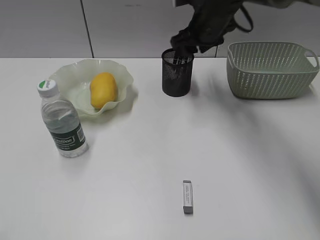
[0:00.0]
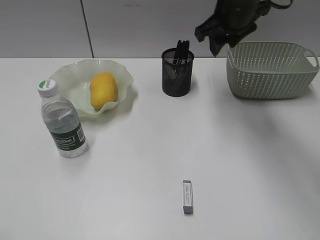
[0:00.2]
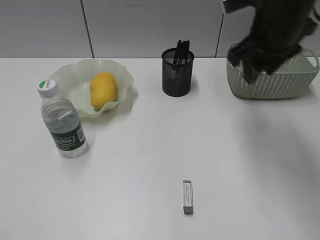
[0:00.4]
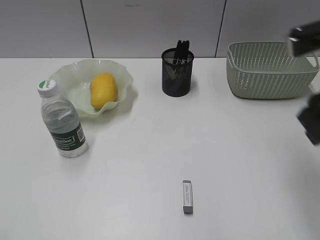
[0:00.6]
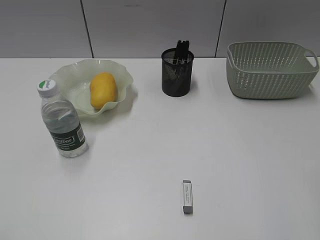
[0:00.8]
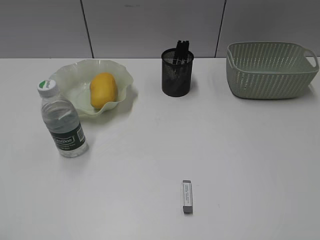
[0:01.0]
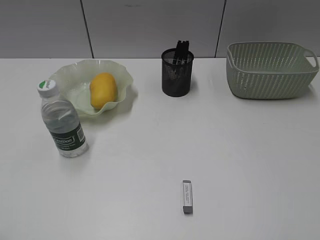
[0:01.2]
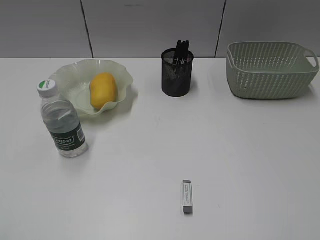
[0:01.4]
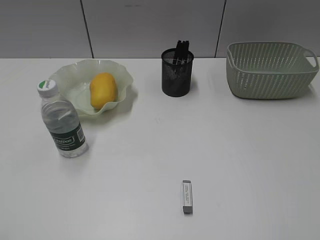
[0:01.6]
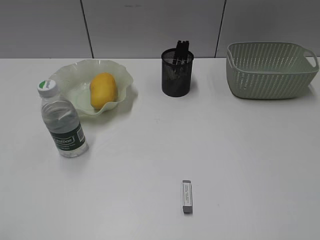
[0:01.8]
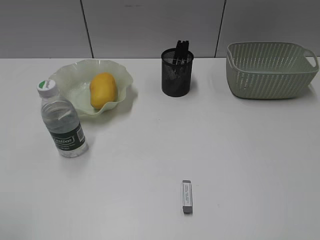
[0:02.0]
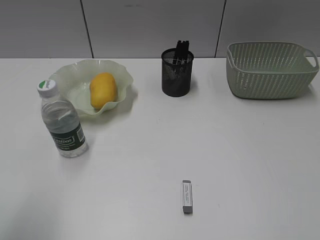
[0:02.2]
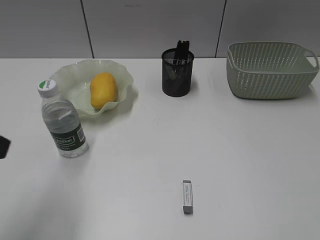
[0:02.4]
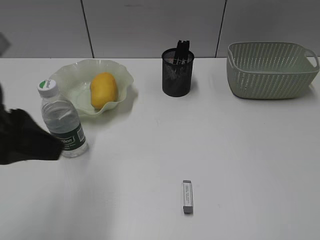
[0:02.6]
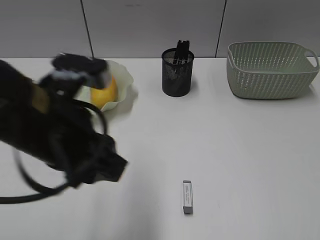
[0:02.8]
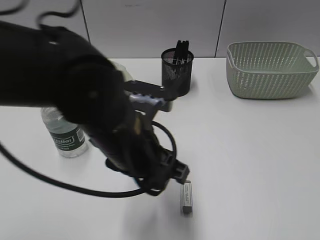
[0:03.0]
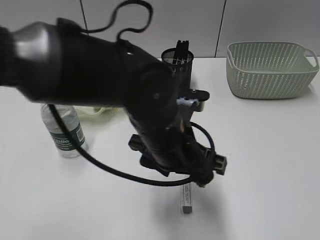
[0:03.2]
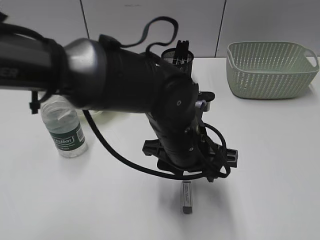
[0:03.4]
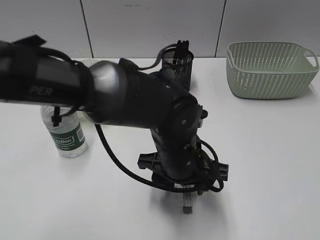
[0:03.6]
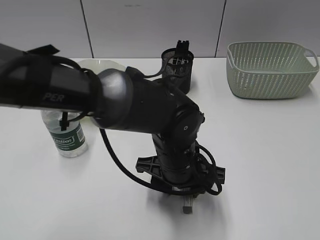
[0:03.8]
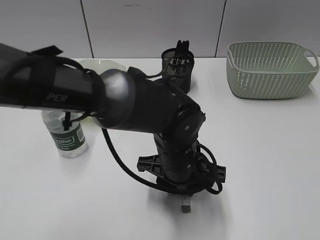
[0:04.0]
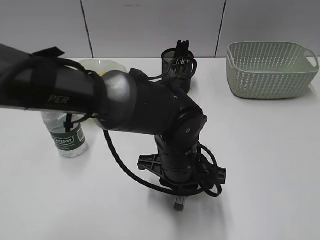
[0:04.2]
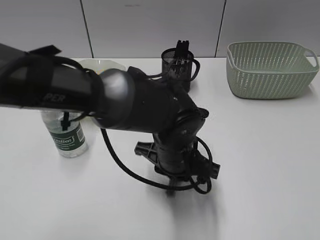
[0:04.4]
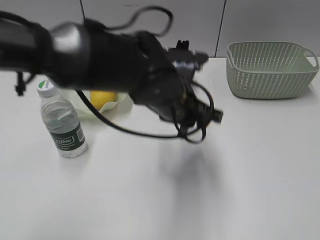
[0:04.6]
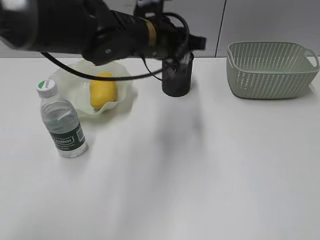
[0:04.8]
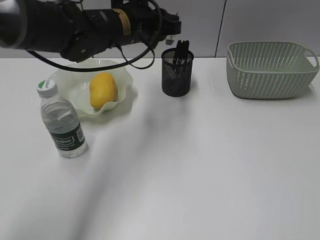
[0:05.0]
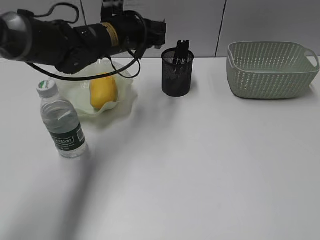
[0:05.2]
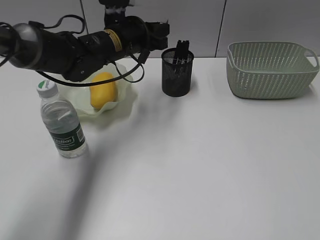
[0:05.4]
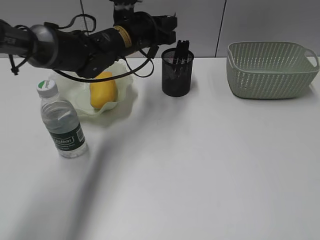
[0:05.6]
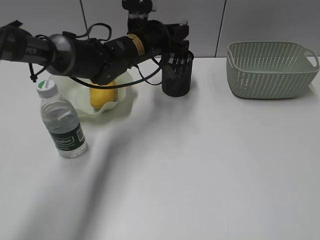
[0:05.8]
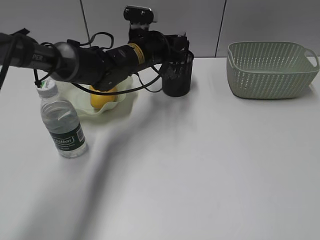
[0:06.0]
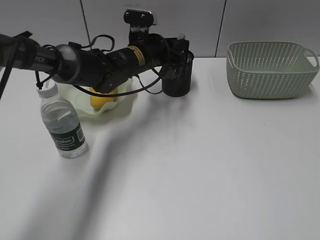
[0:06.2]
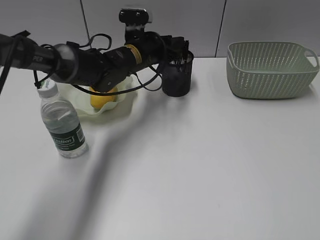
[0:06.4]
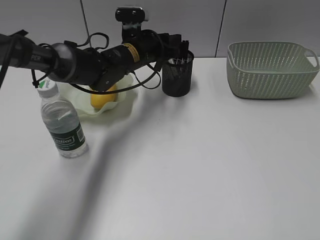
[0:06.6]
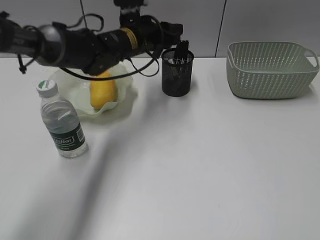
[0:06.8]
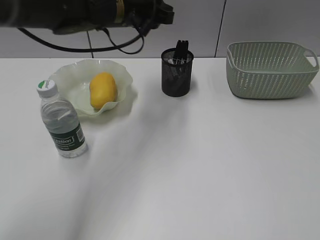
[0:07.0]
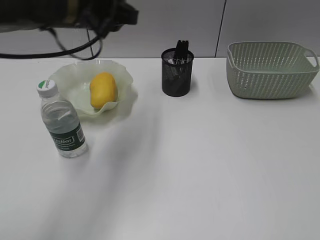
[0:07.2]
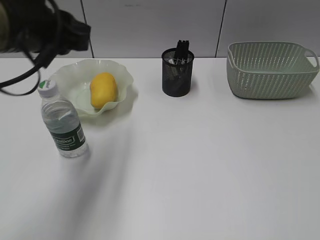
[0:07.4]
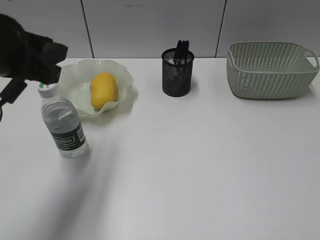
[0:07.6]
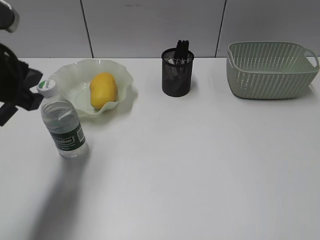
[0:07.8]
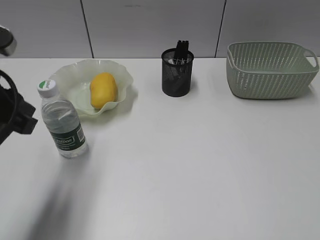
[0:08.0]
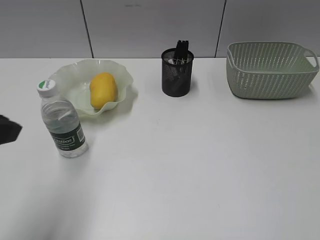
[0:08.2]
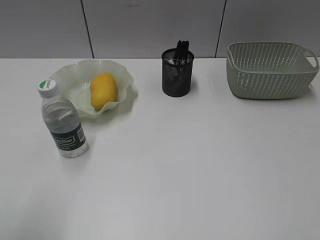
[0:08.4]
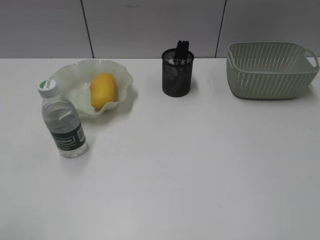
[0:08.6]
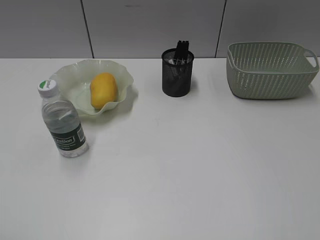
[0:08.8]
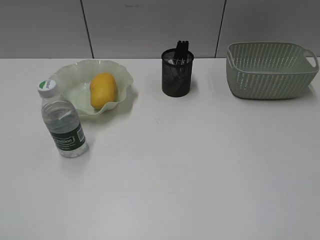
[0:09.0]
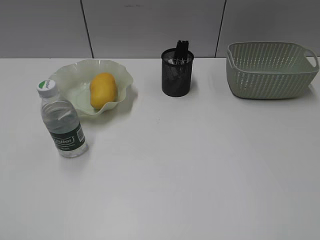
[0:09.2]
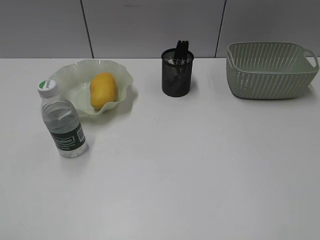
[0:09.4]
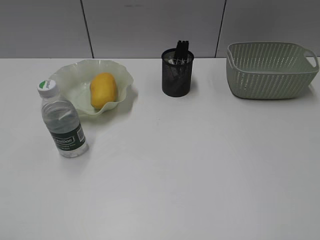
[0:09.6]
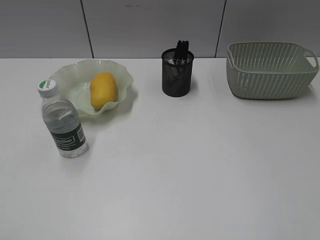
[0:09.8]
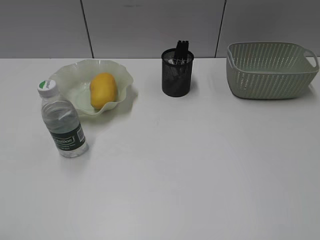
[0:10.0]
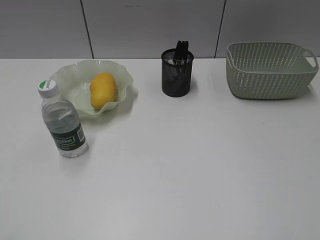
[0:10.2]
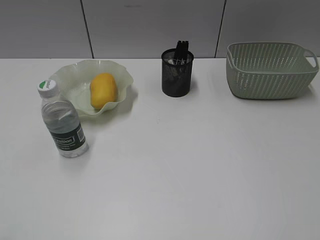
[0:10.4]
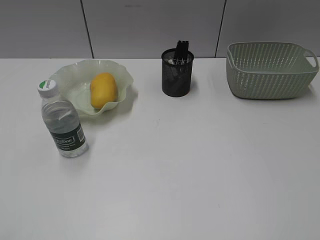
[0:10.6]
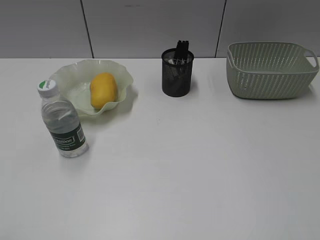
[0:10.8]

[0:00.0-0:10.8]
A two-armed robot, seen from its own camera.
Step, 0:00.0 to 0:04.2: Grasp the eraser with left gripper.
Step, 0:04.4 to 0:06.8: Place the eraser in pen holder with left gripper.
0:00.0 to 0:01.6: The right gripper travels backward and to the right by approximately 50 cm.
0:01.6 to 0:03.0: The left gripper heads to the right and forward, covering roughly 35 cm.
0:03.0 to 0:04.6: The left gripper moves forward and to the right, about 10 cm, goes downward and returns, approximately 10 cm each way, and closes its fingers.
0:04.6 to 0:06.2: The left gripper goes approximately 15 cm forward.
0:06.2 to 0:07.8: The left gripper goes approximately 30 cm backward, to the left and upward.
0:07.8 to 0:09.2: The left gripper travels backward and to the left by approximately 25 cm.

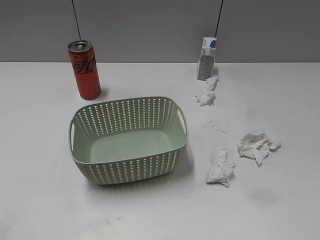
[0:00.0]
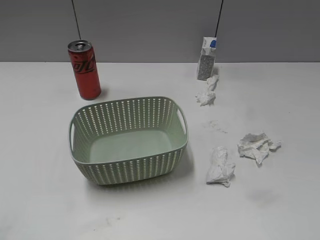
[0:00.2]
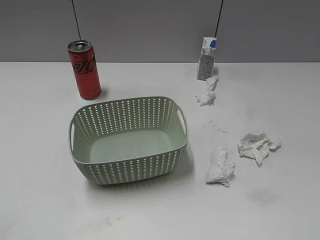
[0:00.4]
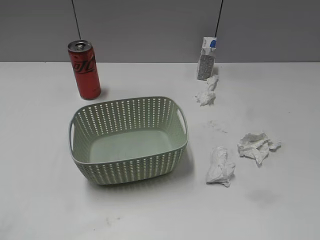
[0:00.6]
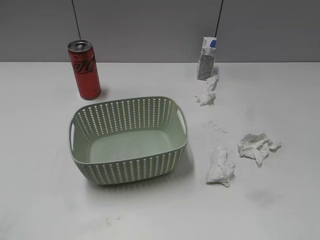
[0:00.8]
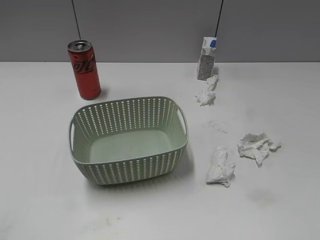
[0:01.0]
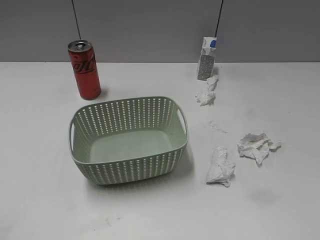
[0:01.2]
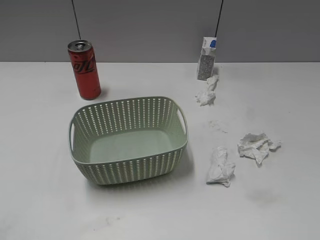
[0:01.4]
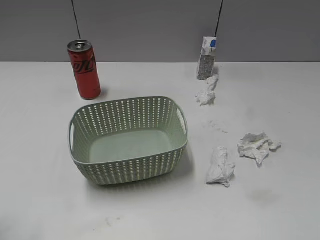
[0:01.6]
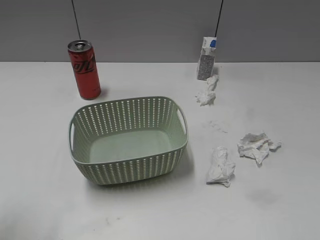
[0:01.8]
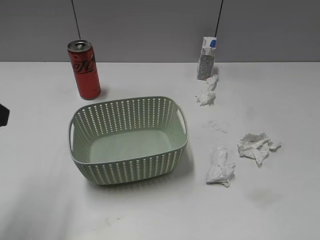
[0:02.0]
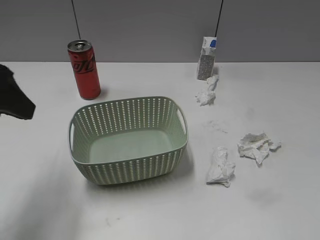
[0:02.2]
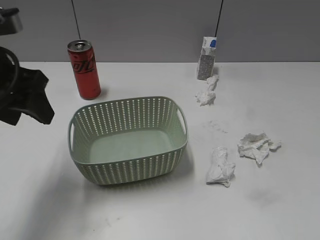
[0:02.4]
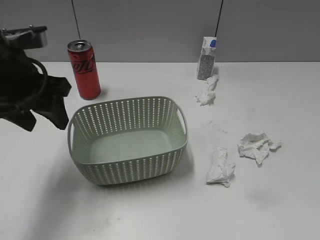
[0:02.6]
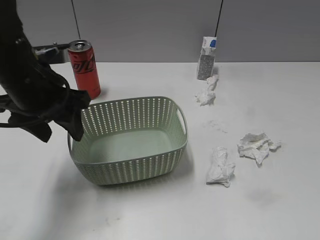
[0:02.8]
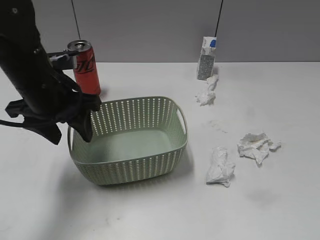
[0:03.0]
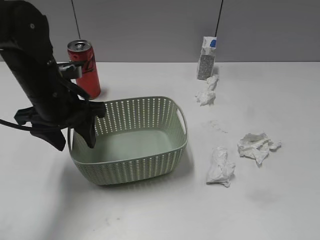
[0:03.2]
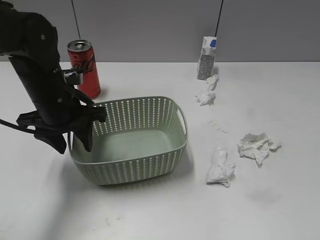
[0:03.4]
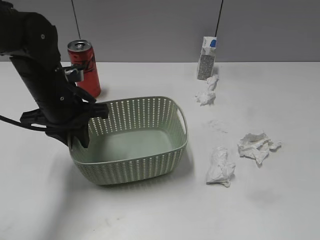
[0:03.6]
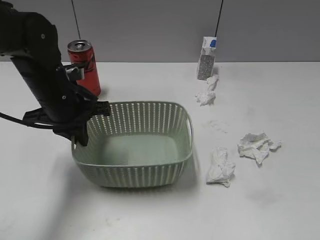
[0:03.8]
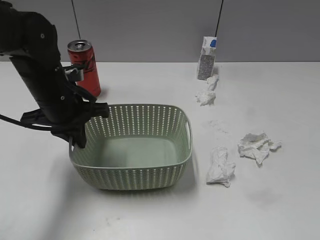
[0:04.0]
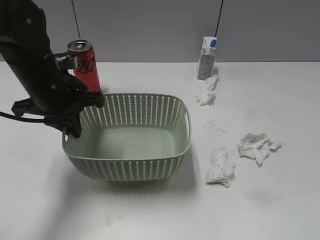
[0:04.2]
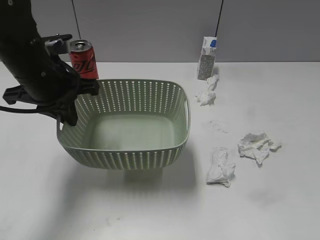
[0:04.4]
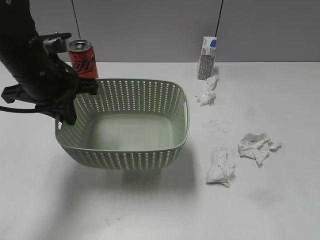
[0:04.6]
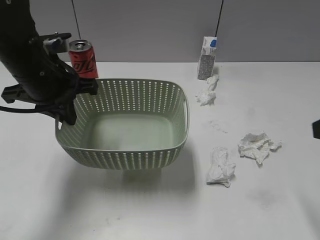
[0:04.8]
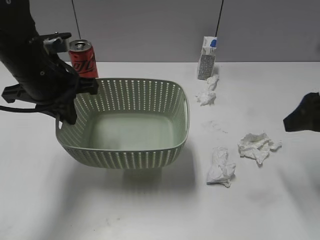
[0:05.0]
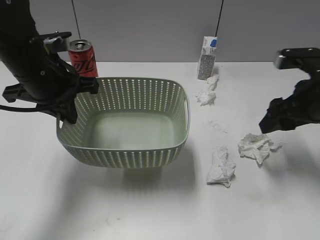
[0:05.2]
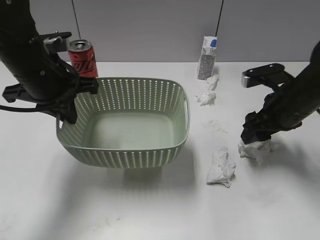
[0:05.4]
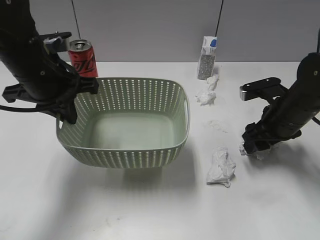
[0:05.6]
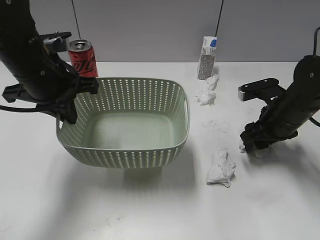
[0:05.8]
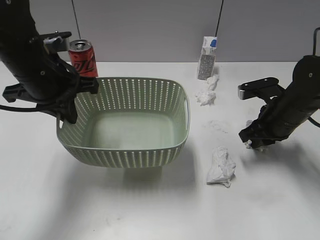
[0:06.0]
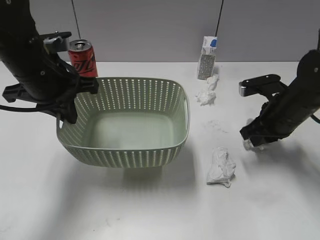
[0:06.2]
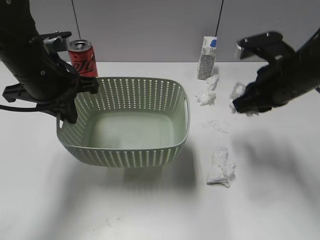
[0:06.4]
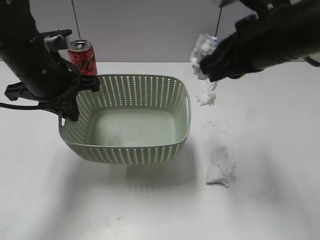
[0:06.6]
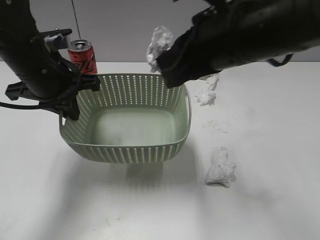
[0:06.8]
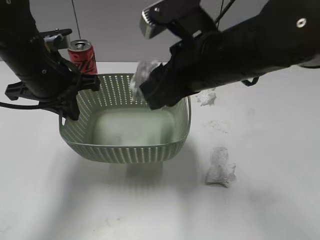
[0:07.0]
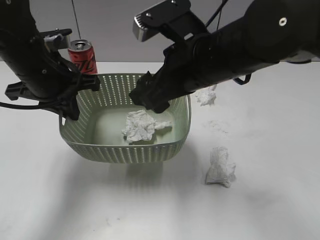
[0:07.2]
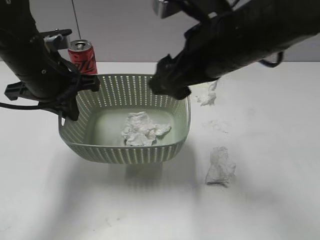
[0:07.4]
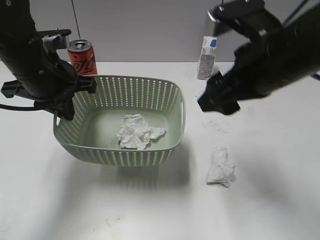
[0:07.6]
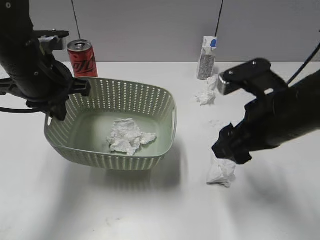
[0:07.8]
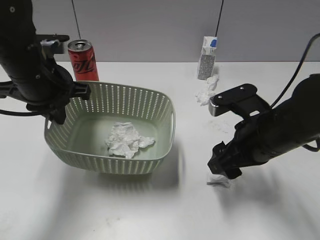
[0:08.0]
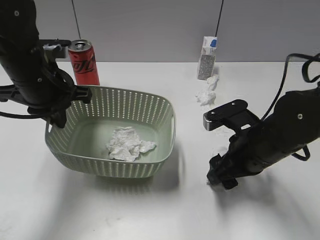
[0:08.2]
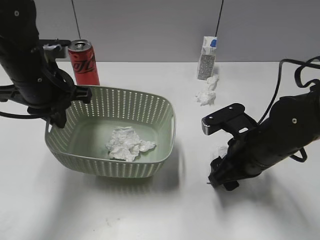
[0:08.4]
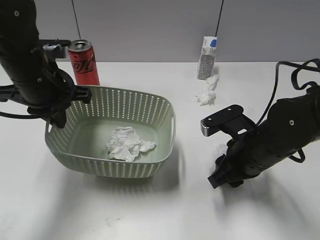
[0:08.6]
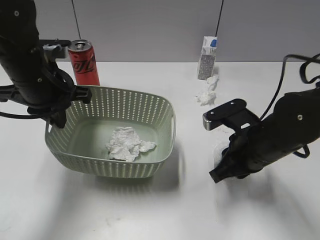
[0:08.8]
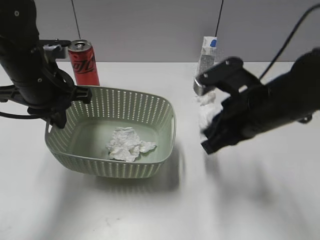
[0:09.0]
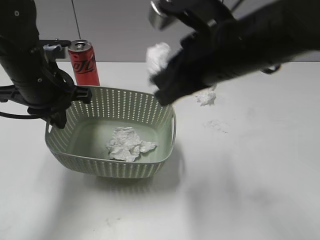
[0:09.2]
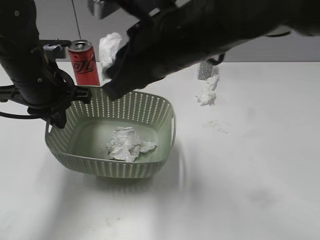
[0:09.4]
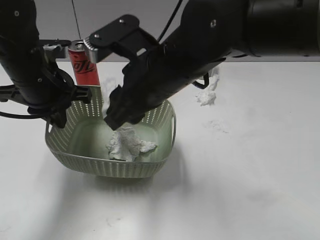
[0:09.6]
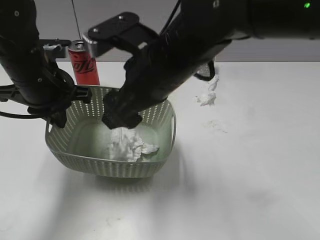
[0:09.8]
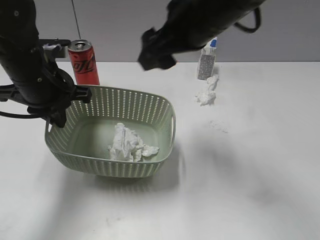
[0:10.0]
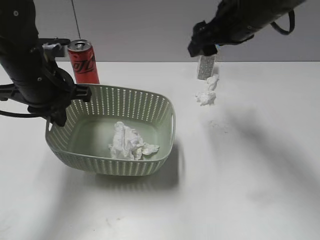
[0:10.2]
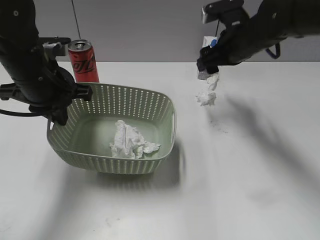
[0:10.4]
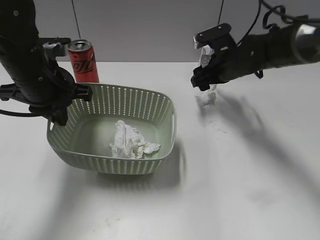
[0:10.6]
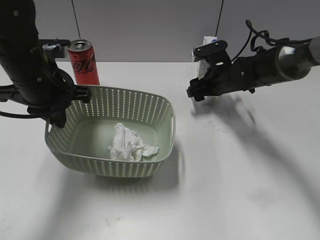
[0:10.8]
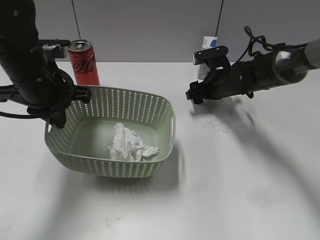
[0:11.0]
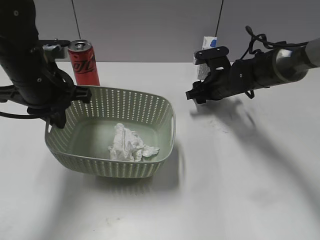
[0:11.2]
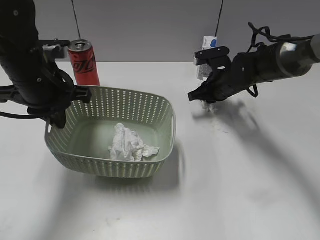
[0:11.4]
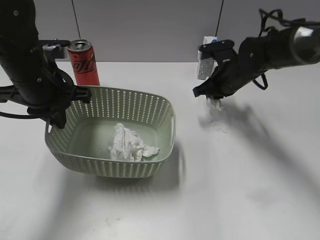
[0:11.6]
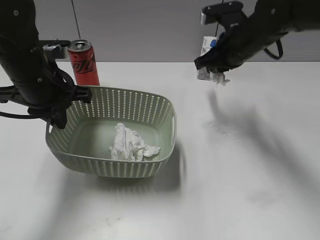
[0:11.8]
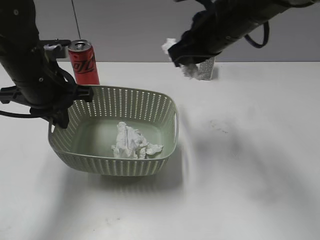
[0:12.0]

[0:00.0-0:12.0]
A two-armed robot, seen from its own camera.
Step, 0:01.8 to 0:03.8: Grasp the basket with left gripper.
Step, 0:04.0 to 0:04.2: Lift the basket with left gripper.
Step, 0:04.4 to 0:06.2: Grasp the waste paper with right gripper.
Step, 0:06.4 to 0:07.2: Place the waste paper in the basket with right gripper.
Step, 0:07.4 to 0:08.8: Grasp the waste paper with right gripper.
Step, 0:09.0 to 0:09.8: Place the waste paper in the basket with right gripper.
Step, 0:10.0 to 0:11.6: Grasp the waste paper with right gripper.
0:01.6 to 0:03.0: The left gripper travels forward and to the right by about 25 cm.
0:03.0 to 0:04.4: The left gripper closes.
0:04.4 to 0:06.0: The right gripper heads forward and downward, covering some 35 cm, and closes its fingers.
0:06.0 to 0:07.6: The right gripper travels upward, to the left and backward by approximately 20 cm, and opens its fingers.
0:07.6 to 0:09.0: The right gripper travels downward by some 10 cm, and closes up.
0:09.0 to 0:10.4: The right gripper is displaced forward by some 15 cm, and opens up.
0:10.4 to 0:12.0: The right gripper is displaced backward and to the left by approximately 10 cm, reaches approximately 10 cm downward, then returns, and closes its fingers.
